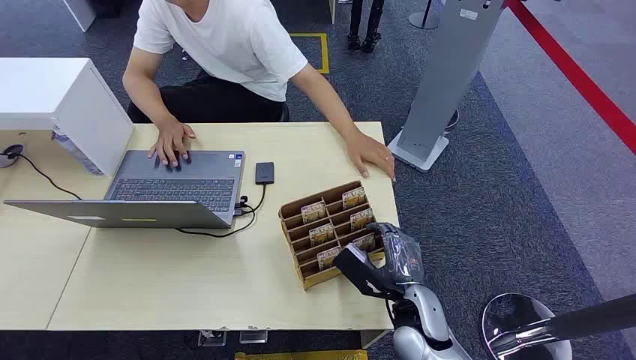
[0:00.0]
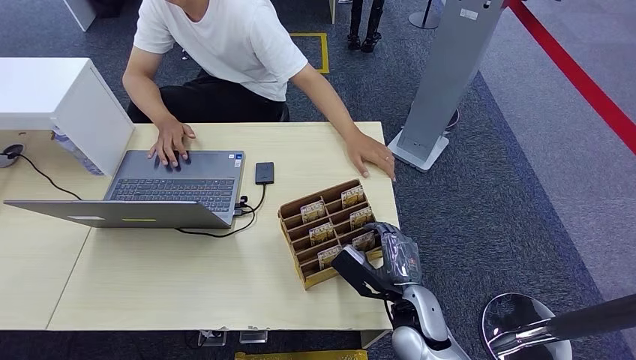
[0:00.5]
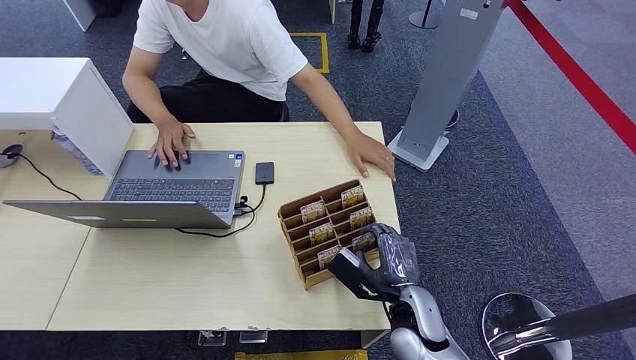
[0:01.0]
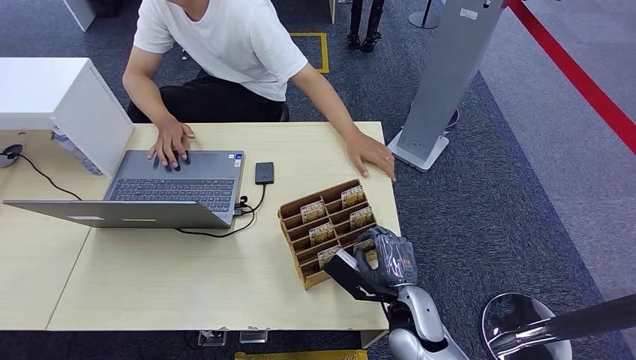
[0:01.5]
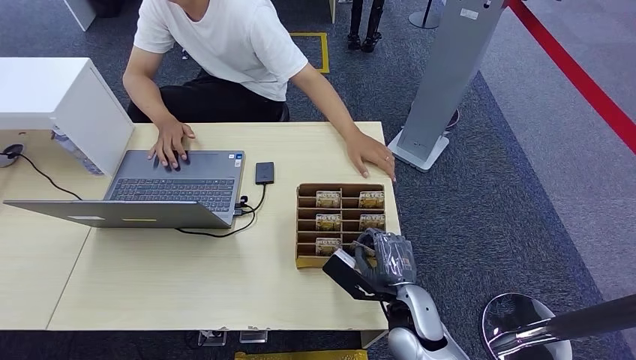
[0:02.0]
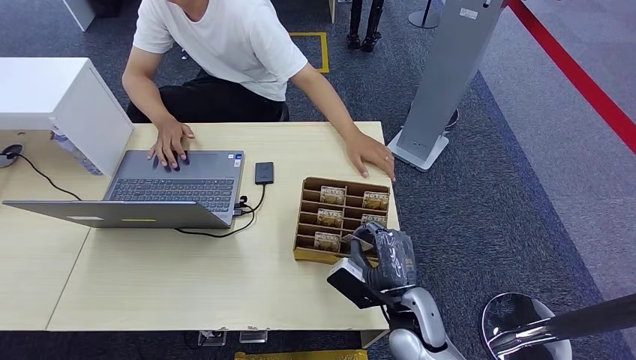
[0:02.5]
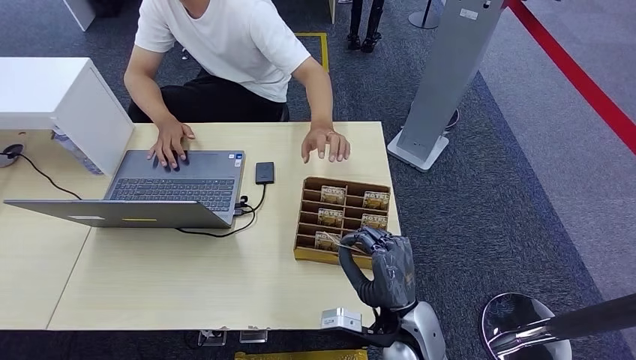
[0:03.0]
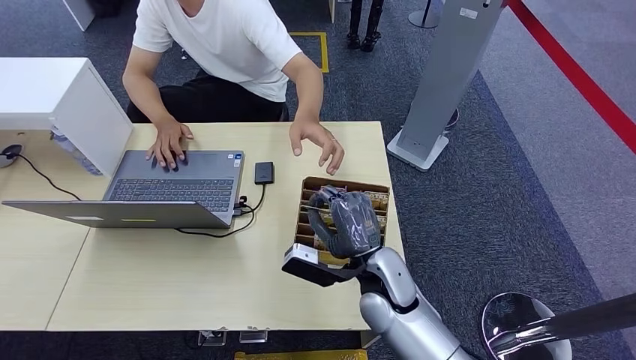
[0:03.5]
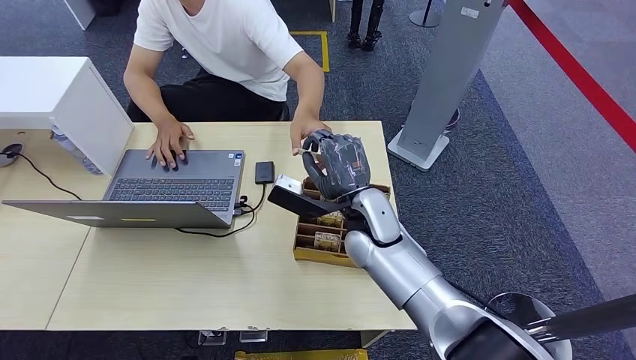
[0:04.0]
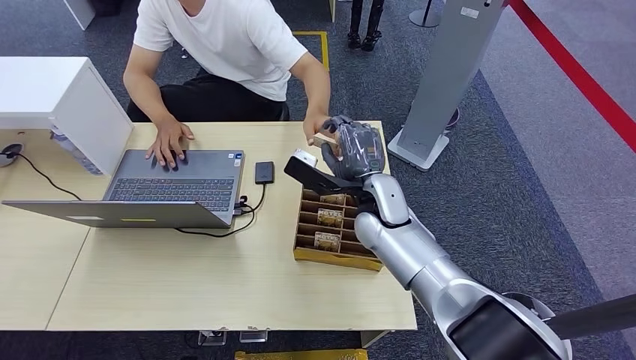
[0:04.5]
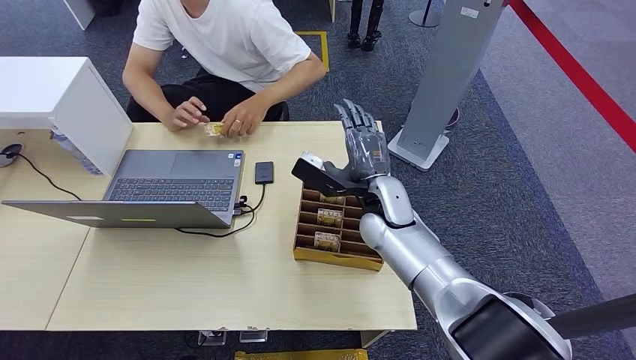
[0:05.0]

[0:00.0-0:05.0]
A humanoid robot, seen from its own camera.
Step, 0:00.0 to 0:03.0: Pick up the room card from the card holder.
Step, 0:03.5 to 0:05.0: Hand the room card to the target.
0:02.5 to 0:05.0: The right hand shifts approximately 20 cm forward and upward.
